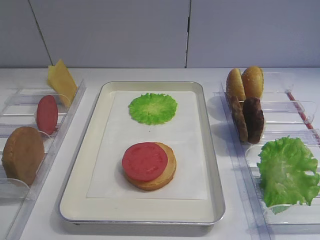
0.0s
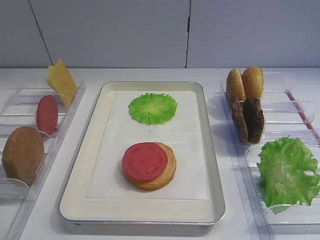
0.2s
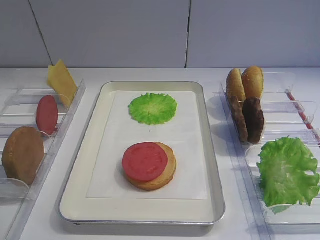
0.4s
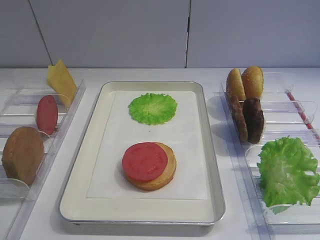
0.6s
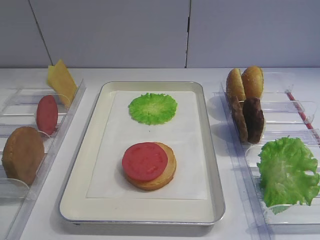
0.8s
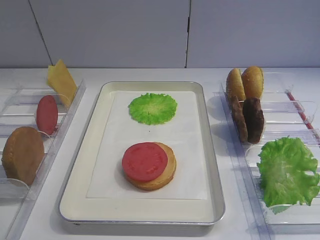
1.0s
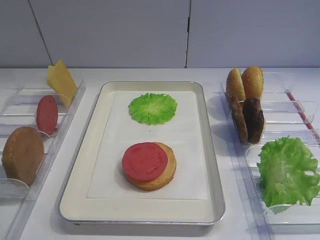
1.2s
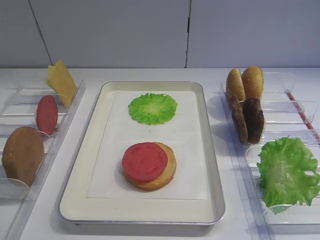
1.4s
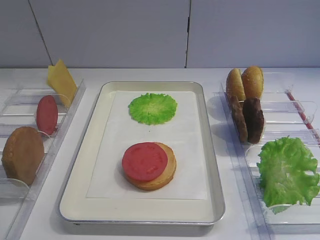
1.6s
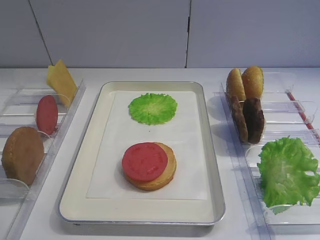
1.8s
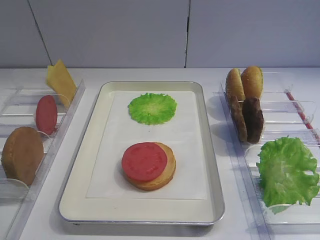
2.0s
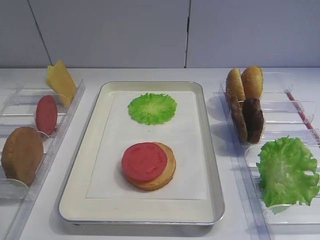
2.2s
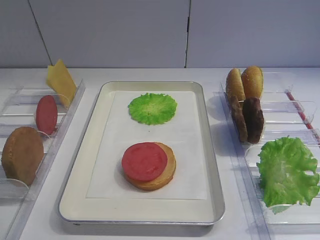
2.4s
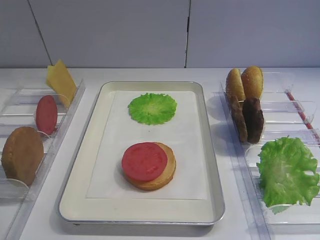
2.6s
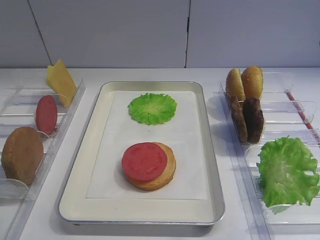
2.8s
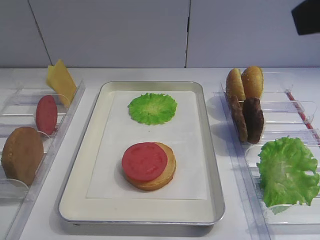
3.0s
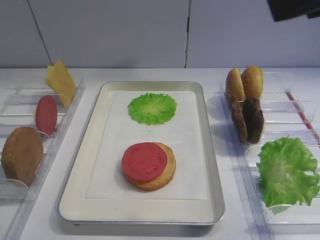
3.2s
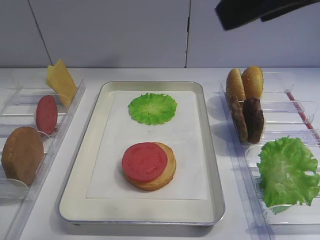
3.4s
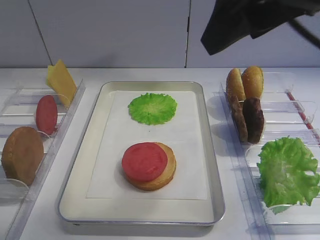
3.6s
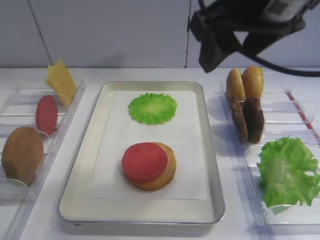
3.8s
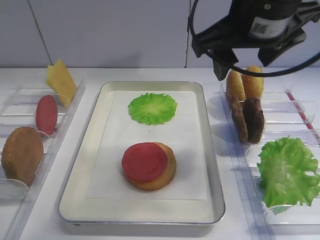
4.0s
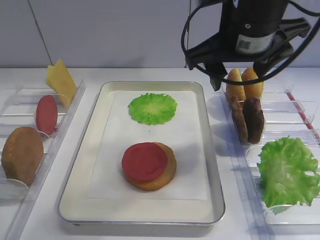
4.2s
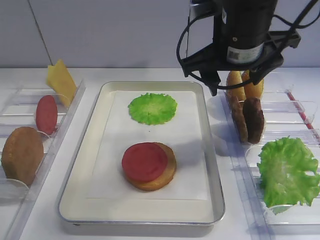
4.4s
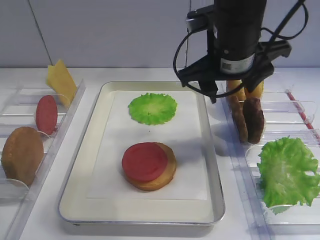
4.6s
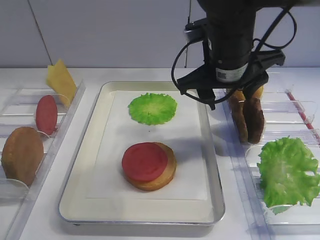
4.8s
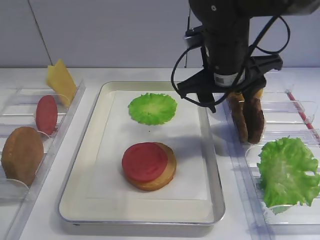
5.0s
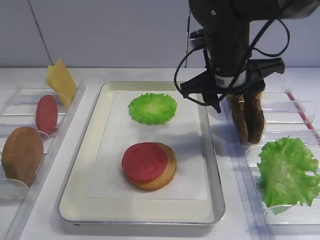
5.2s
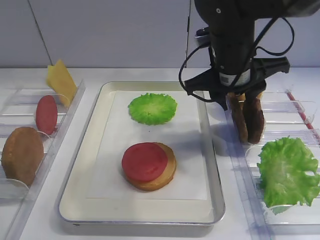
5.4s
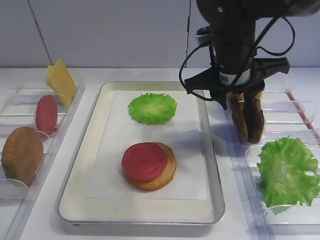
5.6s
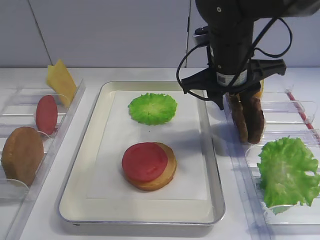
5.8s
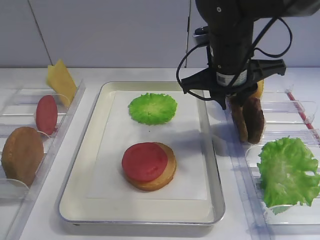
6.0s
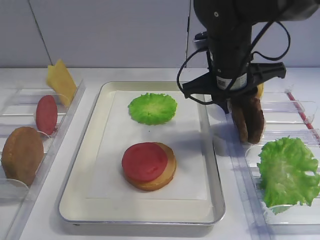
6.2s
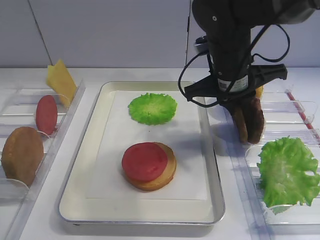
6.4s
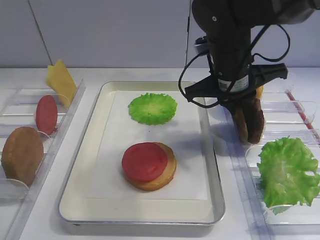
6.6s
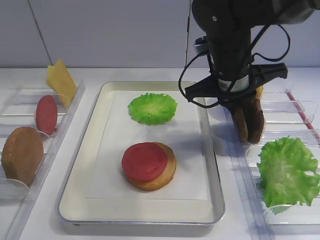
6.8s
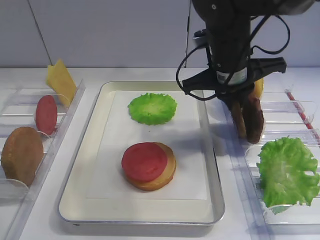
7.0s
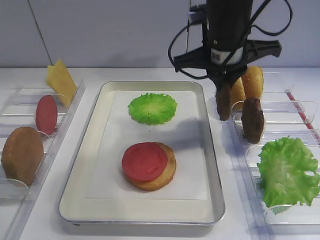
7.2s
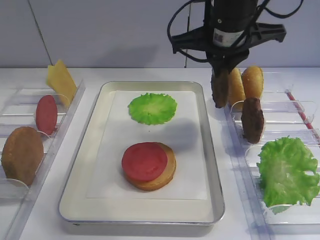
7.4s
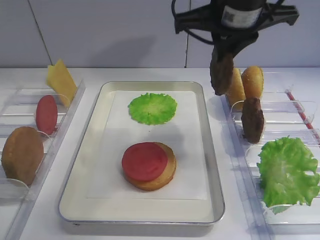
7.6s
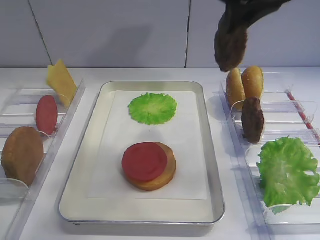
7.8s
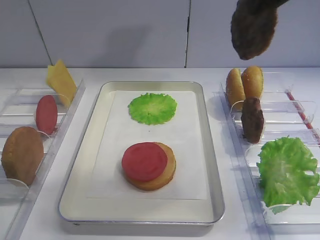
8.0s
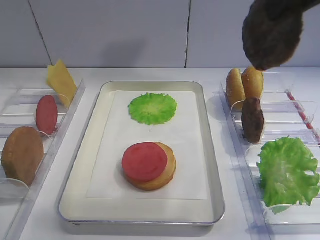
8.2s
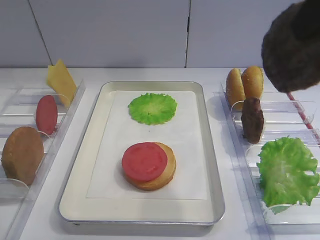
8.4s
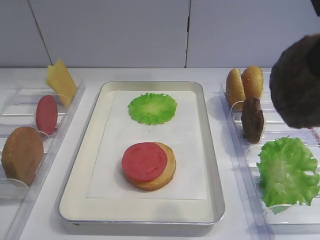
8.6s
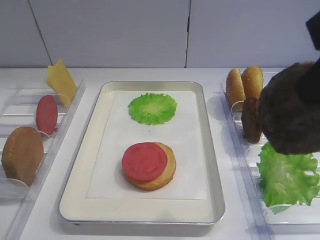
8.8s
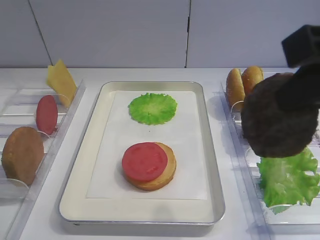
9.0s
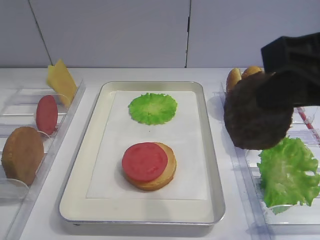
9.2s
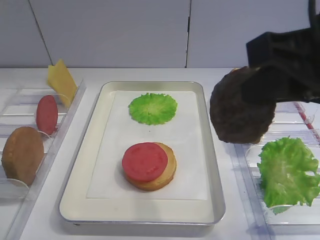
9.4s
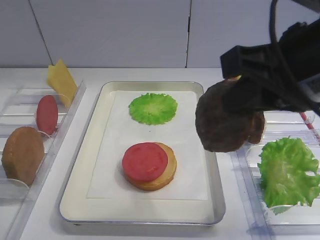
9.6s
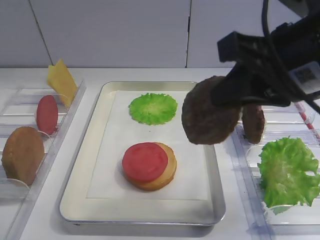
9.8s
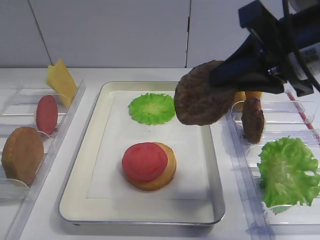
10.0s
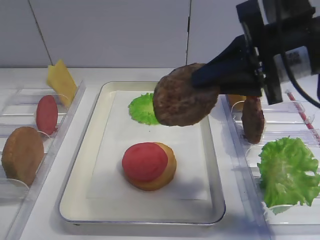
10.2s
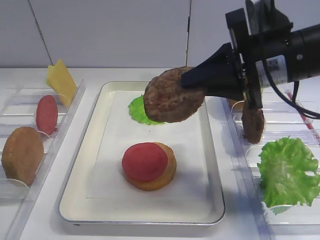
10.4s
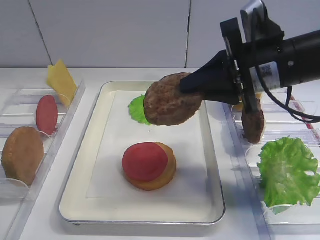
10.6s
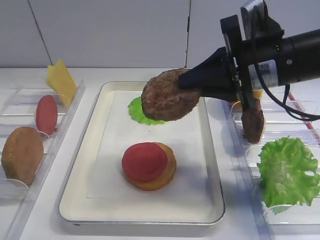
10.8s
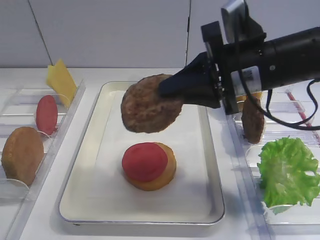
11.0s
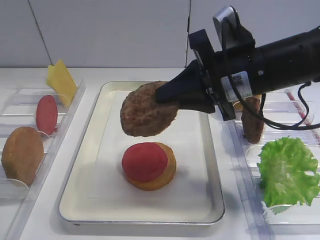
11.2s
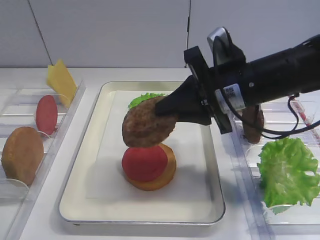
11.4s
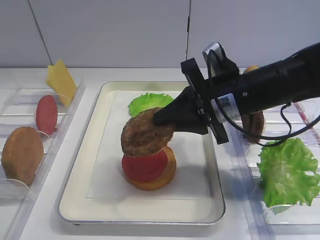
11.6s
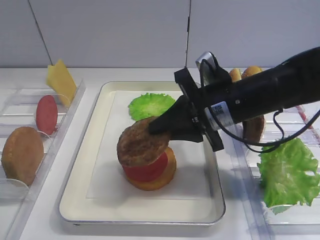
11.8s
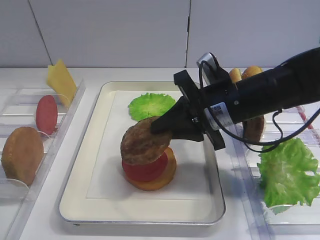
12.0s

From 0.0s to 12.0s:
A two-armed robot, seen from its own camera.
Step, from 0.0s to 7.0s: Pick up the cutlet with the right gripper.
From 1.6s to 3.0s: The right gripper shifts about 20 cm upward and forward.
From 3.0s to 4.4s: The right gripper heads forward, downward and to the left, covering approximately 20 cm.
From 4.4s to 6.0s: The right gripper is displaced downward by about 5 cm, and closes its fingers.
From 6.0s to 7.6s: The right gripper goes about 10 cm upward.
From 7.6s to 9.0s: The right gripper is displaced backward and to the right by roughly 20 cm.
From 9.0s to 10.4s: The right gripper travels forward and downward by about 15 cm.
From 10.4s to 12.0s: The right gripper is displaced downward by some 10 cm.

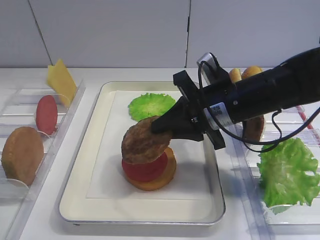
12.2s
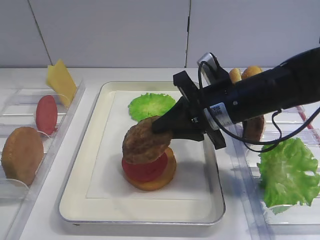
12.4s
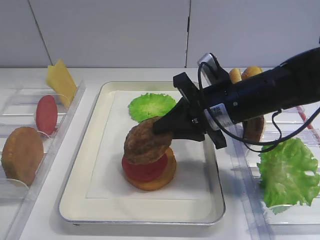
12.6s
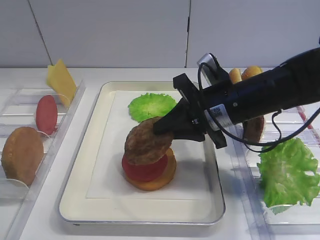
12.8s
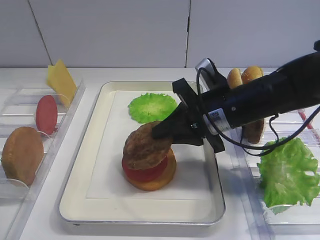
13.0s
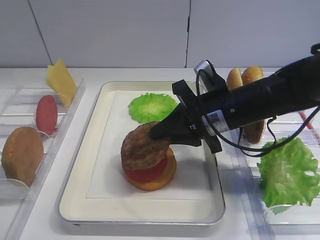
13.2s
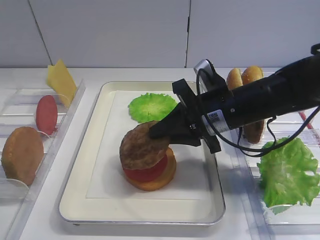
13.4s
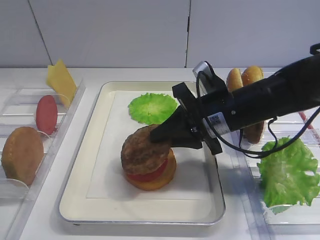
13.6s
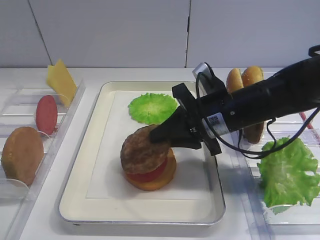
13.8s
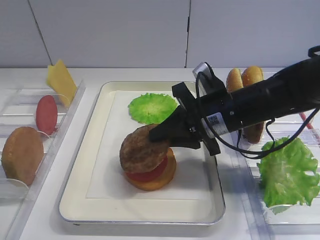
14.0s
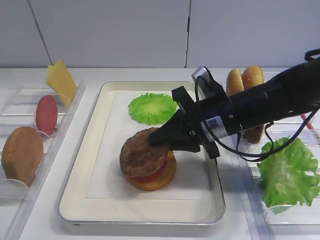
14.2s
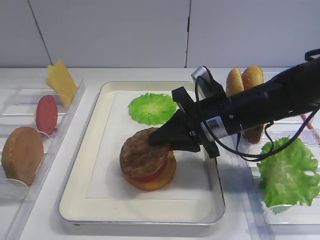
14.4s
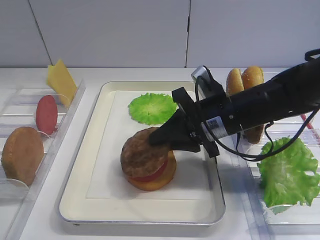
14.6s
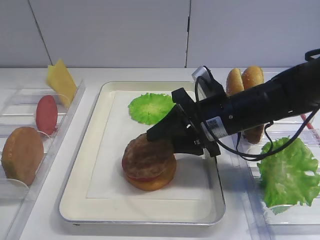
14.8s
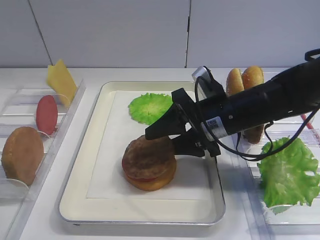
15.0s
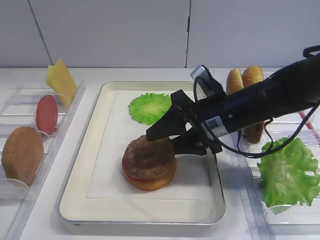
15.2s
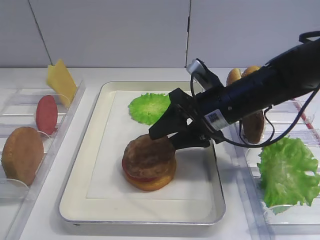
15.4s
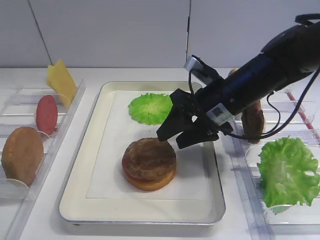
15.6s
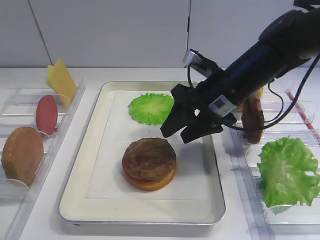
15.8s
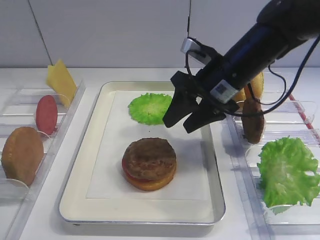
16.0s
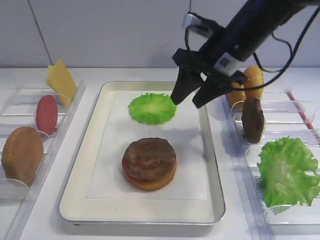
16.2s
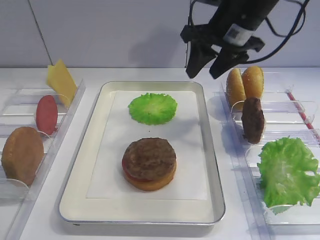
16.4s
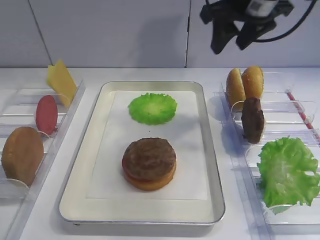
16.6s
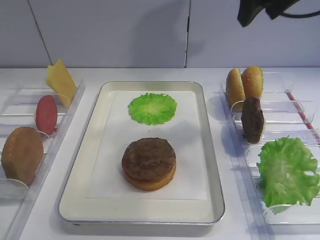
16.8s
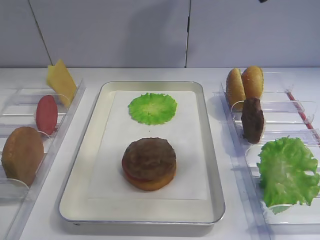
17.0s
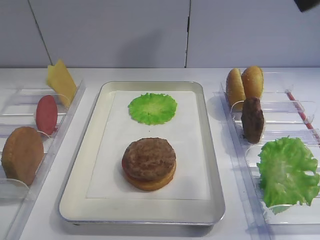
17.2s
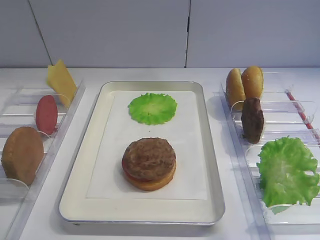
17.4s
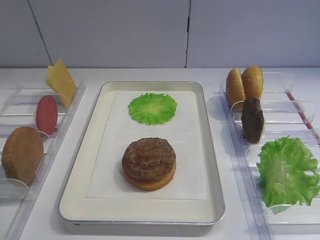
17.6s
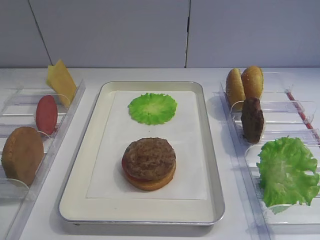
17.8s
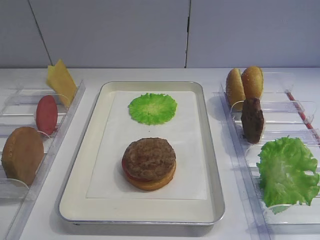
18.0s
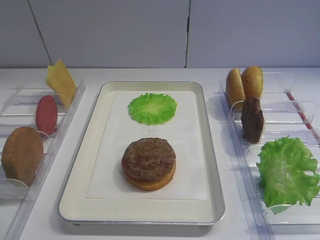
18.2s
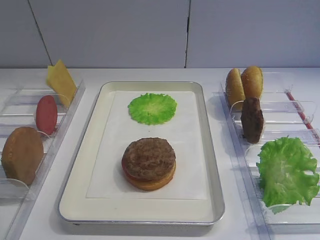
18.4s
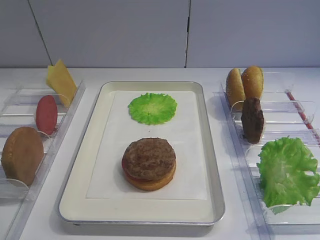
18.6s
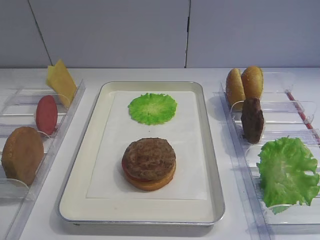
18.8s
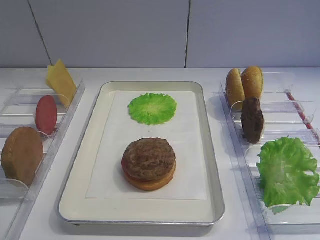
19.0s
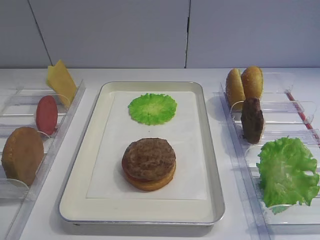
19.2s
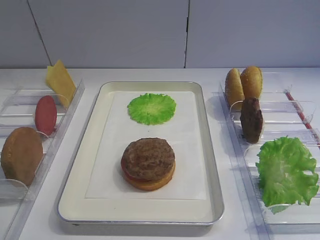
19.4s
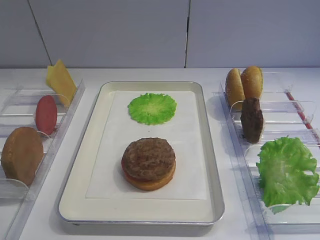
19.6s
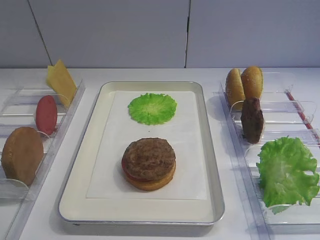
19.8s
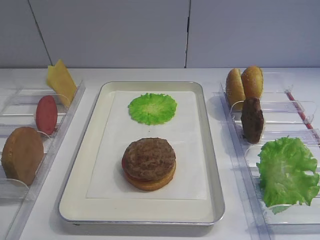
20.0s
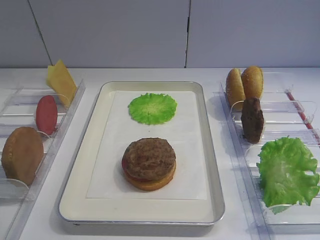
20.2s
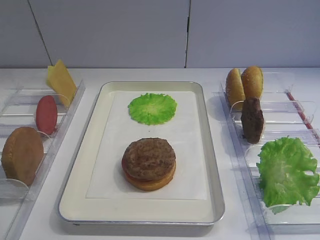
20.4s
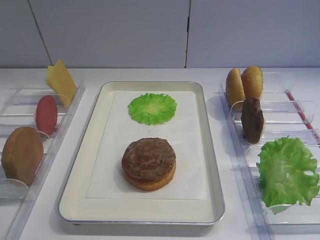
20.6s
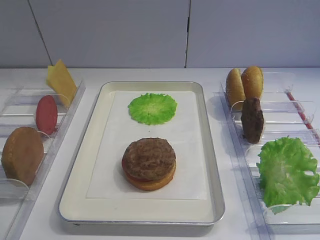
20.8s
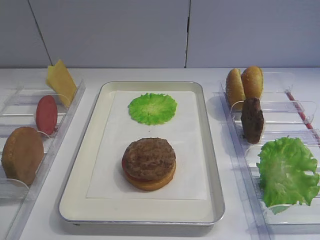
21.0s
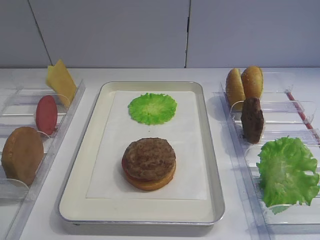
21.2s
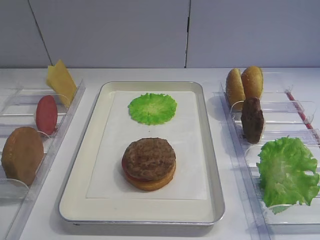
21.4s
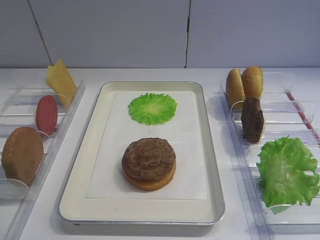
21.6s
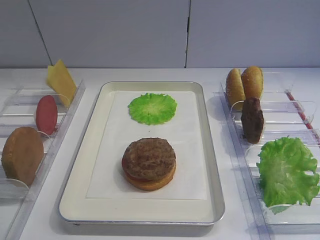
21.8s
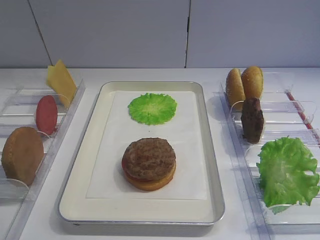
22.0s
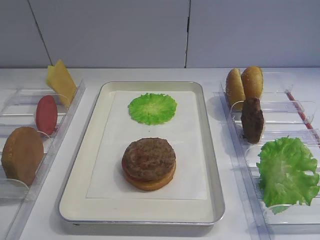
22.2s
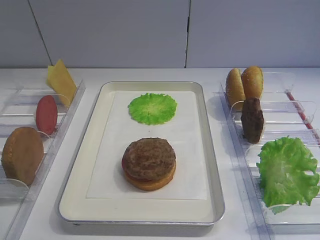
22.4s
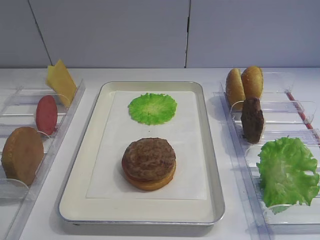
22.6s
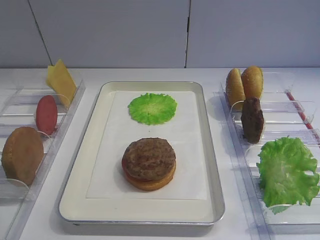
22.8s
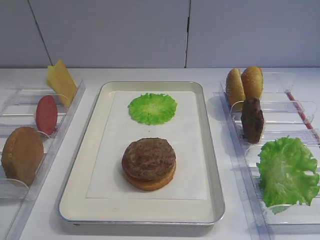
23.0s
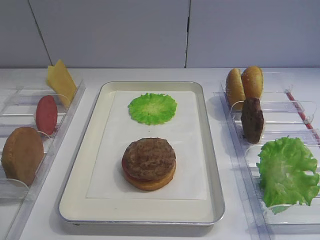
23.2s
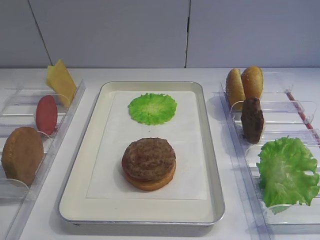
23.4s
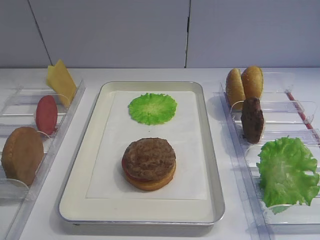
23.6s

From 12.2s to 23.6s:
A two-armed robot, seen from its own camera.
Step, from 12.2s to 15.6s: Place the cutlet on the tomato slice with the right gripper.
From 12.2s to 13.6s: The grippers move only a little.
From 13.6s to 15.0s: The right gripper opens its fingers.
From 15.0s to 16.4s: The right gripper heads upward and forward, covering about 15 cm.
From 16.4s to 17.8s: The right gripper shifts approximately 35 cm backward.
From 17.8s to 19.4s: The right gripper is displaced downward and backward by approximately 10 cm.
From 19.4s to 20.8s: The grippers make only small movements.
From 20.8s to 23.6s: Both grippers stay about where they are.
